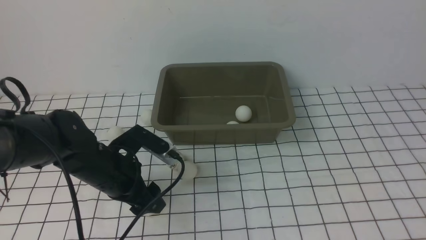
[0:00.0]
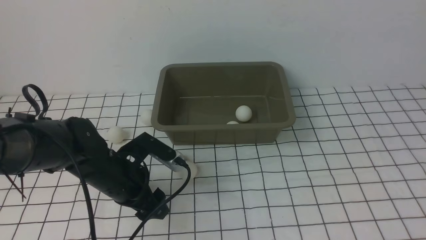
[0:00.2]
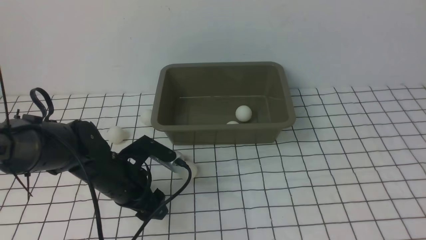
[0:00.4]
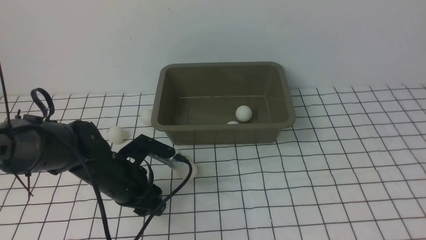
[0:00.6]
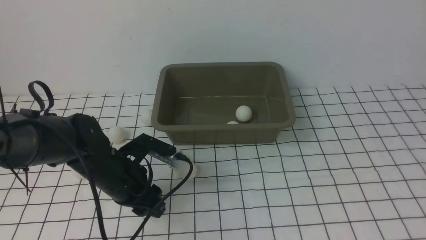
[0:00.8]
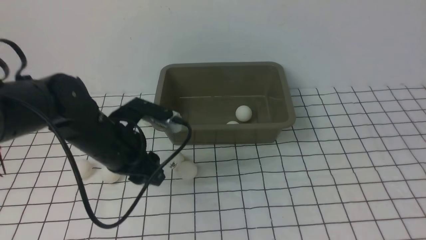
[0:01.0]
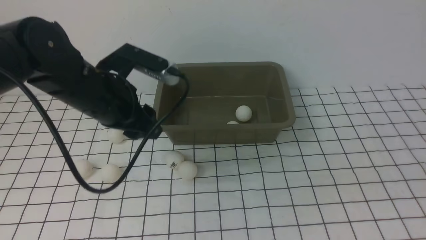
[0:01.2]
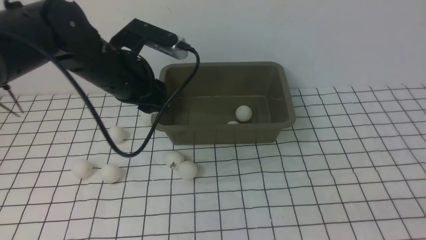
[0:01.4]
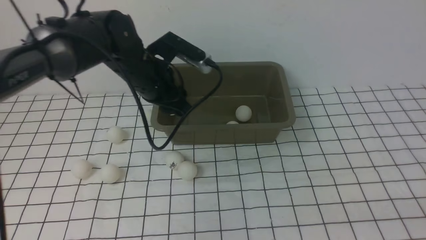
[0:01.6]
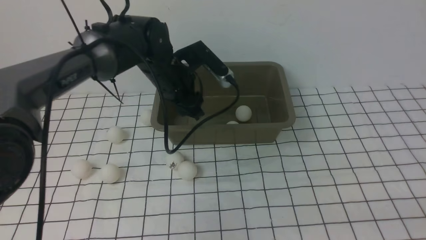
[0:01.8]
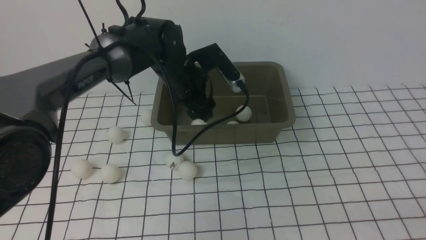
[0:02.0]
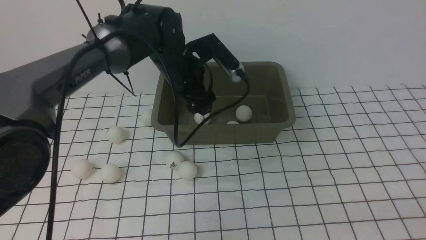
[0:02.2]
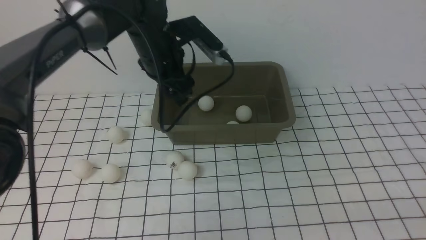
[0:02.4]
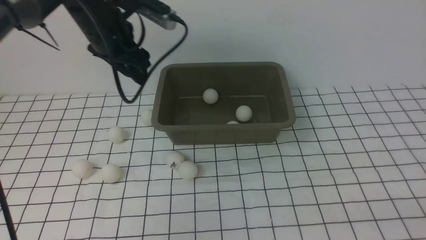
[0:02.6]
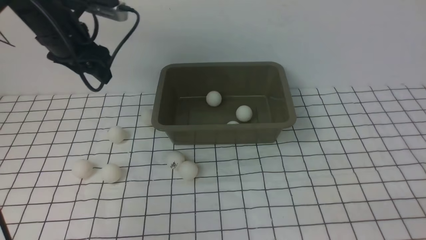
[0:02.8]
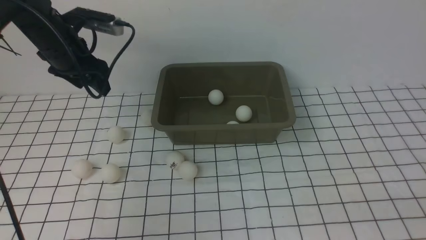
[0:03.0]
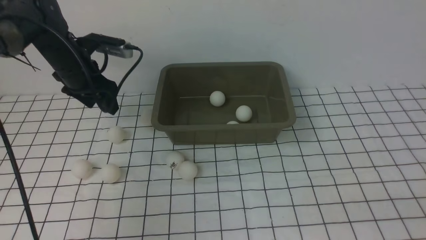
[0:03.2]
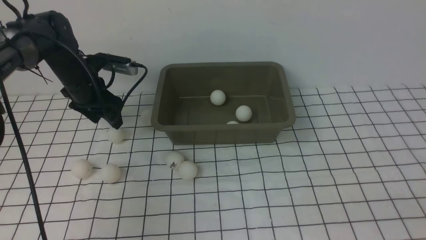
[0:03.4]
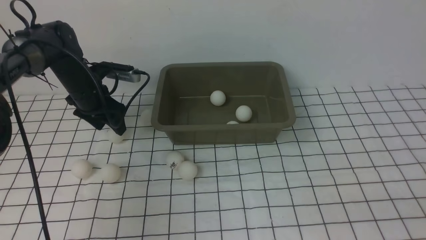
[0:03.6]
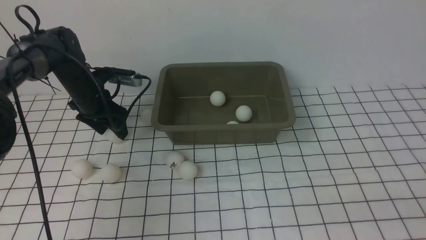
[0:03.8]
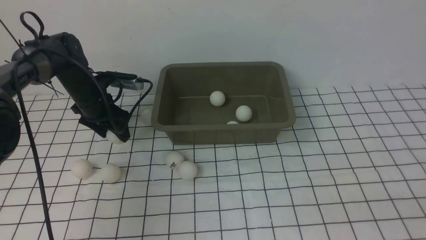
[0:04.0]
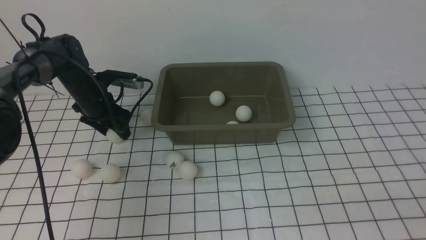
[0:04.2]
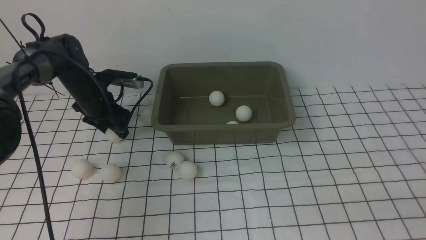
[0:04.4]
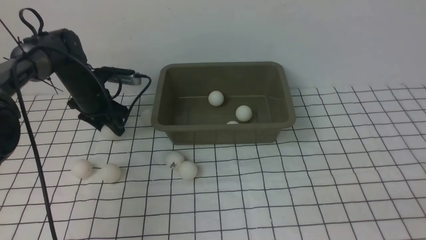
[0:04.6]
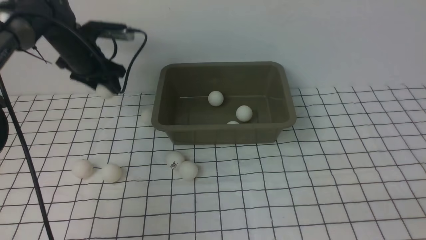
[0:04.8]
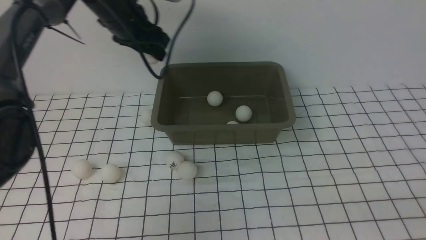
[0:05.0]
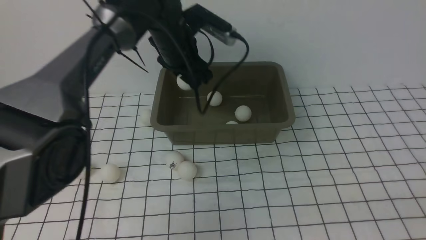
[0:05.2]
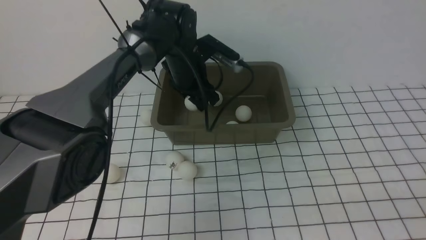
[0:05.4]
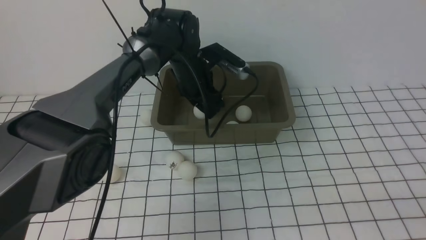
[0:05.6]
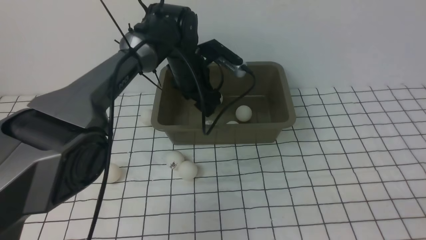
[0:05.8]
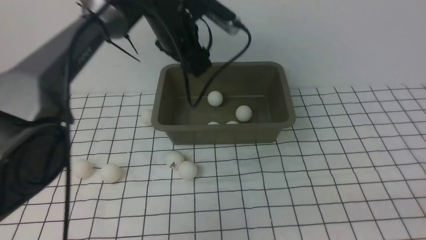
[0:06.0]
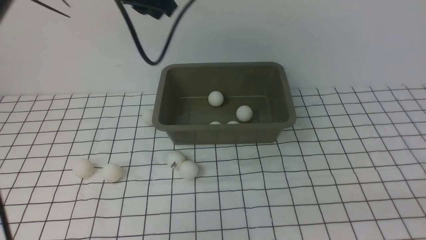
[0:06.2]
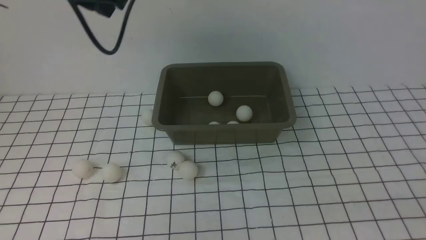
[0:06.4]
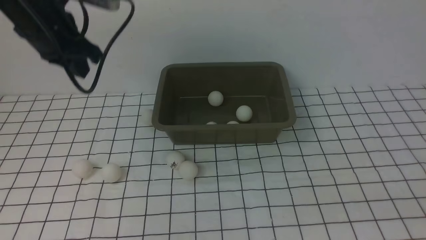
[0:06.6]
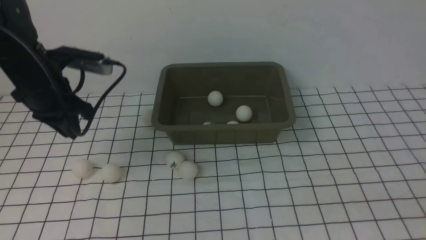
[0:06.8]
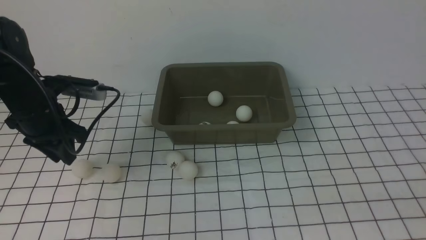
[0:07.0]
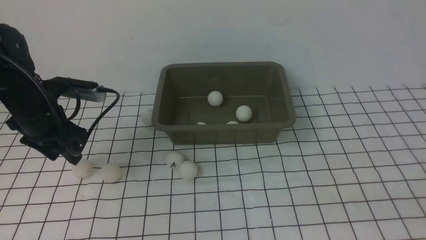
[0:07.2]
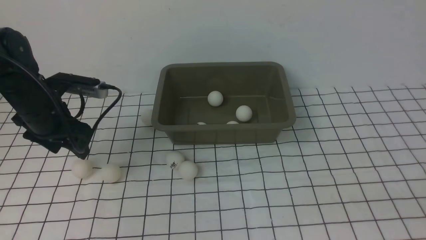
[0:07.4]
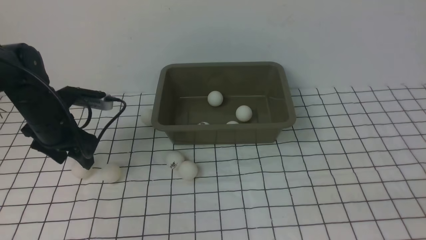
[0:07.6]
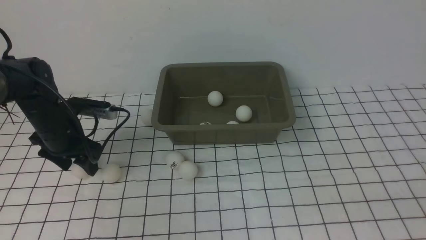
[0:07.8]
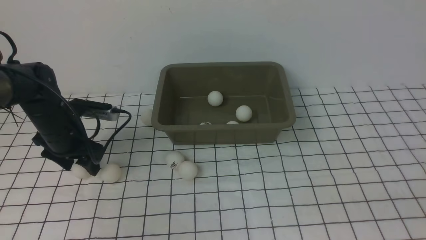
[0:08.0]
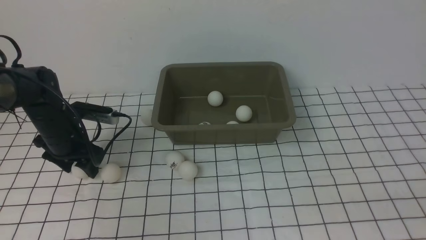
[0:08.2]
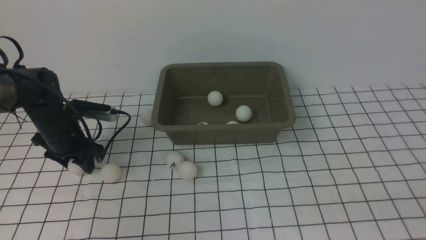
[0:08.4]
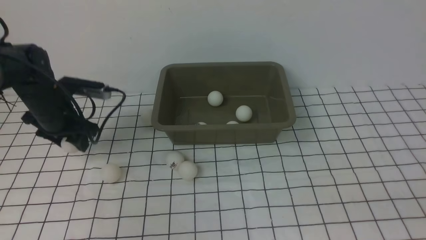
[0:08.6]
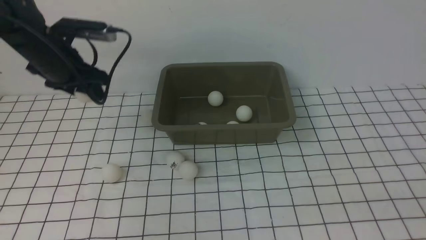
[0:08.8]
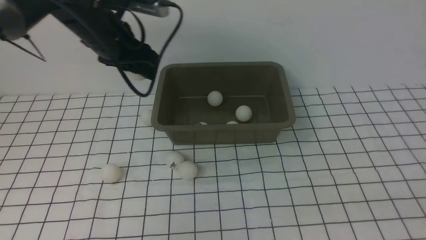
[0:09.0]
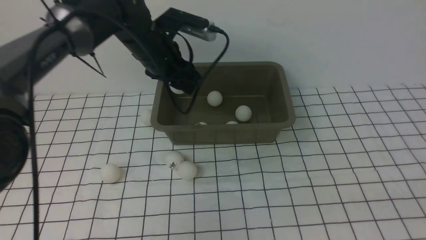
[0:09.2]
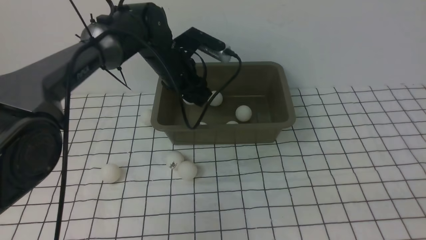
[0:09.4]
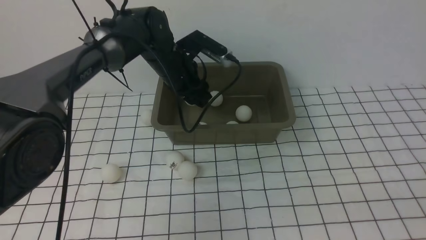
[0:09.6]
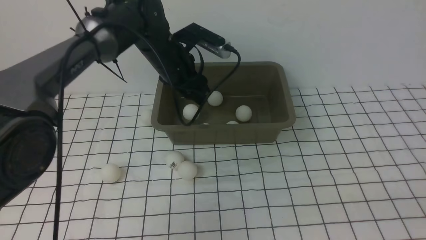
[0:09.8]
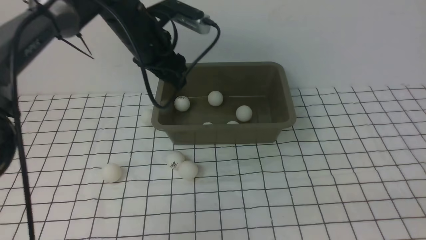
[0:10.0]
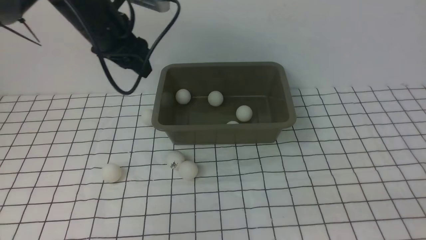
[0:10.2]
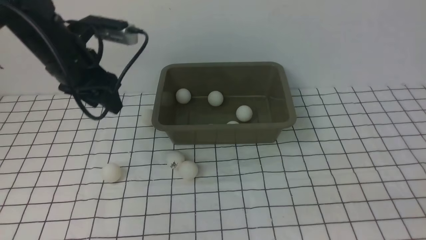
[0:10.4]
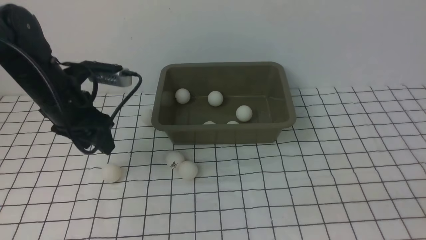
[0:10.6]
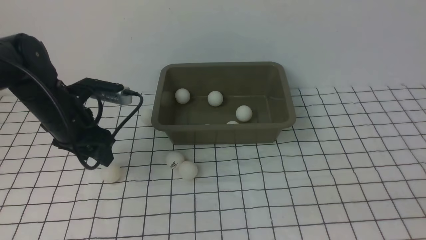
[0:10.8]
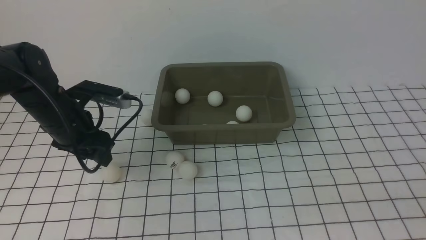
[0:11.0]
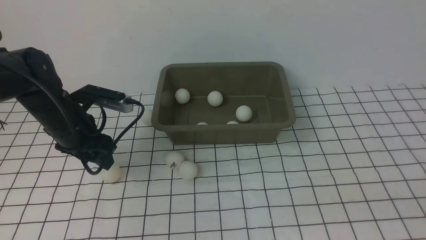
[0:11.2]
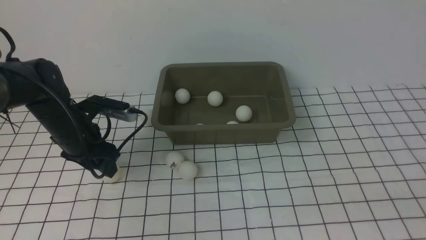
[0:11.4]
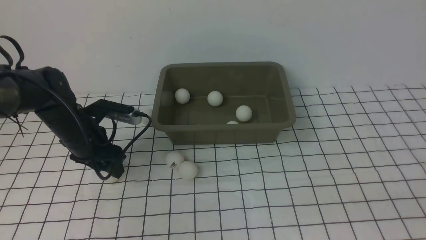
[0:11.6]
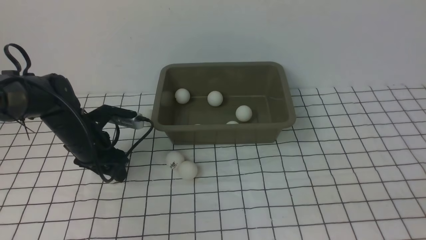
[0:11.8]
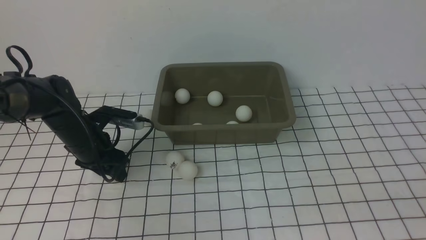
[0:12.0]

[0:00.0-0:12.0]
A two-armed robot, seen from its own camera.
Step, 0:01.2 to 0:02.2: use the left arm to put the table tennis ball into the box.
Step, 0:02.4 to 0:04.8: use the left arm to clamp the table tennis ball closest to it.
Step, 0:05.0 to 0:05.6: use the left arm to put the table tennis ball into the box.
Step, 0:05.8 to 0:08.6: use the left arm to clamp the table tennis ball closest to it.
Step, 0:08.8 to 0:09.8: use the left arm to put the table tennis ball into the box.
0:00.0 to 0:01.6: The right gripper is displaced downward and backward by some 20 cm; the left gripper moves forward, upward and to the right, about 15 cm.
0:01.6 to 0:03.0: The left gripper shifts about 15 cm to the left.
0:03.0 to 0:04.4: The left gripper travels downward by approximately 10 cm.
0:04.4 to 0:06.0: The left gripper moves to the right and upward, about 25 cm.
0:06.0 to 0:07.6: The left gripper travels to the left, downward and backward by some 25 cm, and closes, then reopens.
0:07.6 to 0:09.0: The left gripper heads upward, to the right and forward, covering roughly 15 cm.
0:09.0 to 0:10.4: The left gripper travels to the right and back again, approximately 10 cm each way.
0:10.4 to 0:12.0: The left gripper moves downward, about 15 cm.

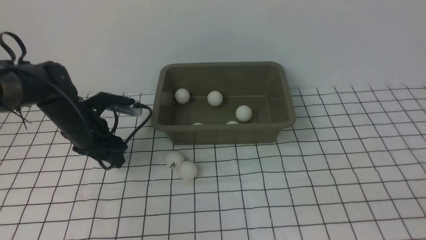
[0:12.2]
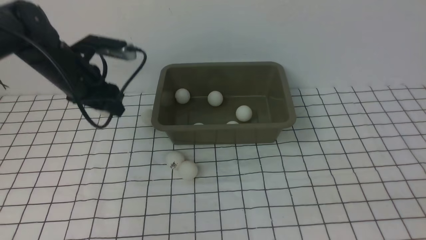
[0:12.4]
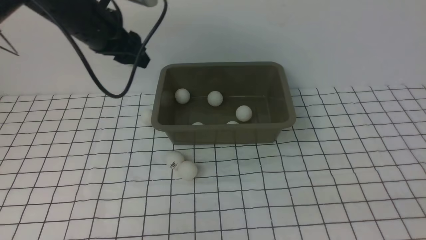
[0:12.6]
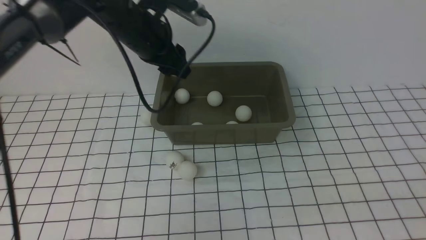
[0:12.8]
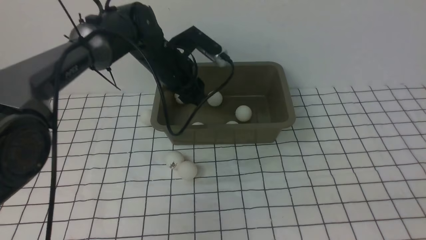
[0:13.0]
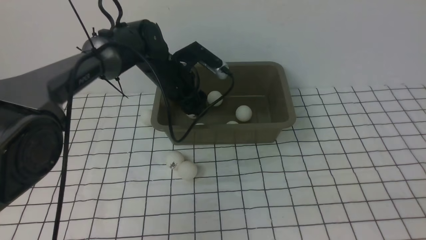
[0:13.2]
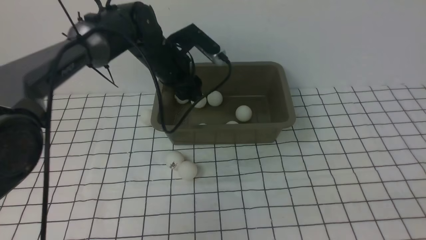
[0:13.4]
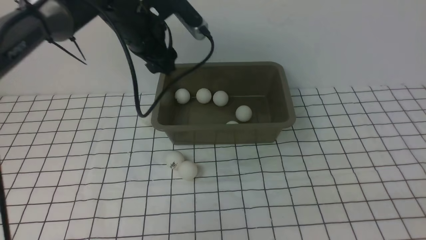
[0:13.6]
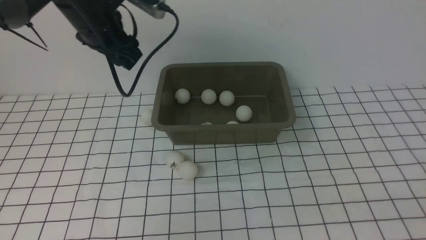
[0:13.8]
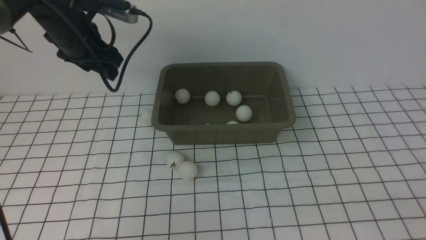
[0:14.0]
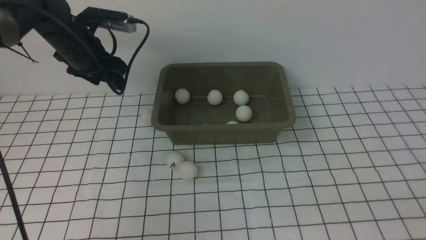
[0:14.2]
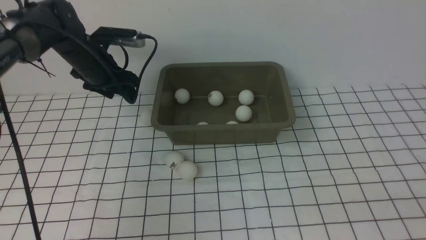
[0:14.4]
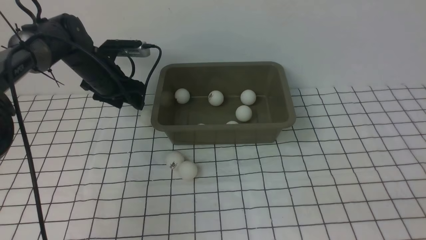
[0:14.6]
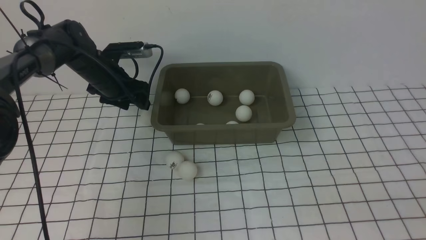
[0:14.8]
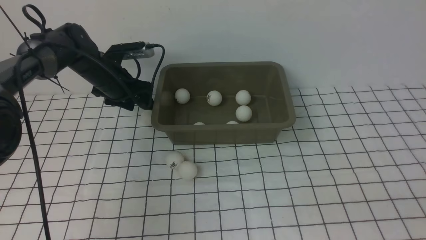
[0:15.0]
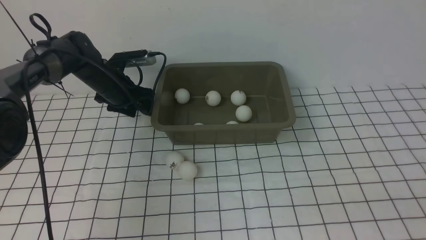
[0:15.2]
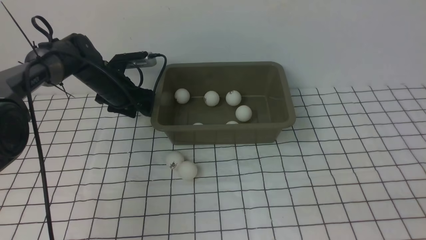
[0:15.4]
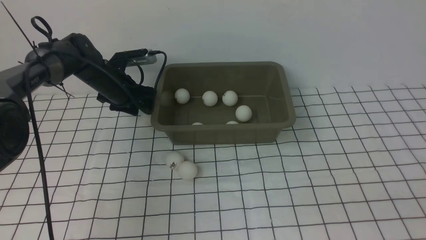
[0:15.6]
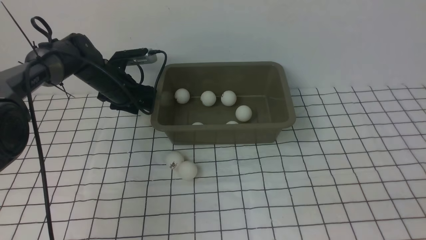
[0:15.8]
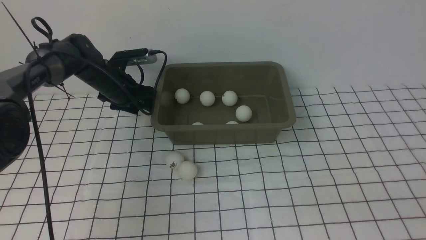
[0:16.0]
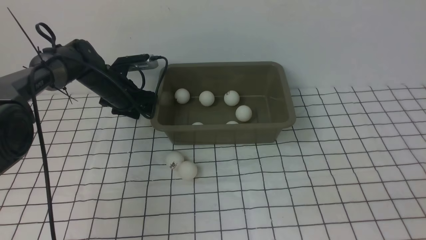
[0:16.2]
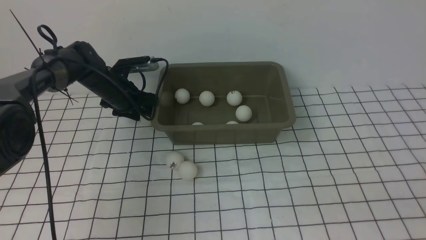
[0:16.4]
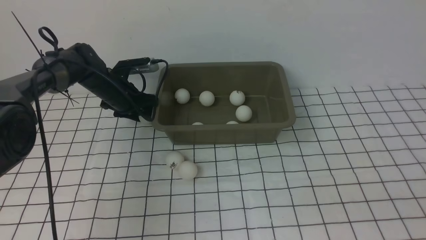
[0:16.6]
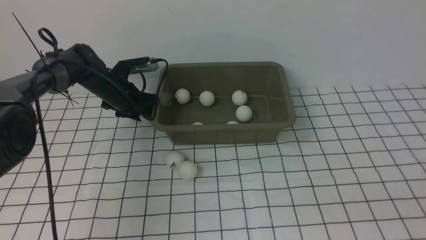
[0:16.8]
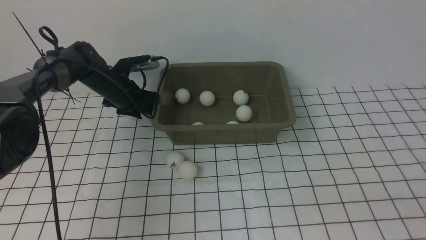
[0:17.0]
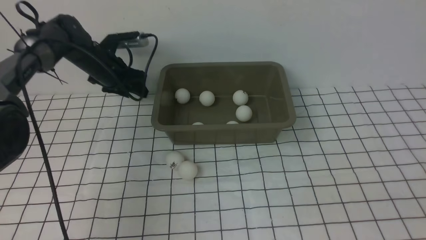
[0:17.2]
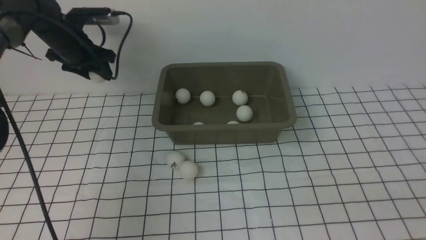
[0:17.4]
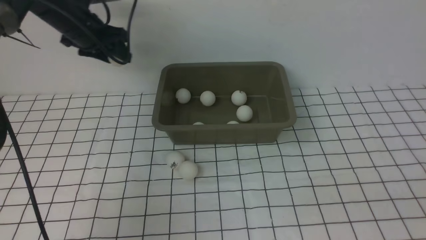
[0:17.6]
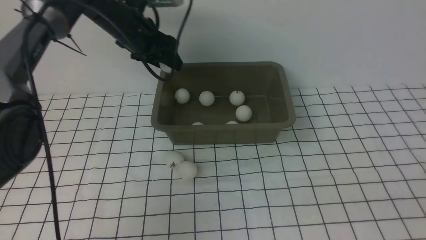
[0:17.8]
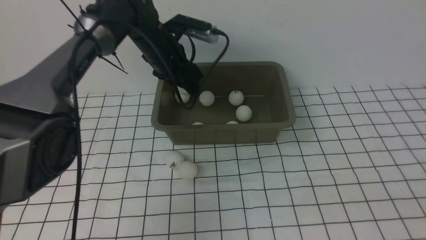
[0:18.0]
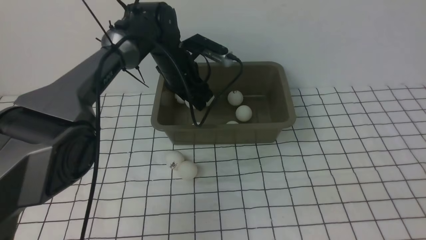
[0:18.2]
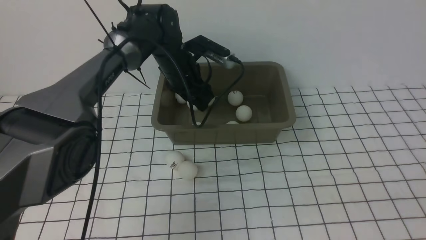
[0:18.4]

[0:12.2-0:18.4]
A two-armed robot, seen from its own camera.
Step, 0:12.6 to 0:13.2: use the left arm to put the table tennis ball into the box.
Step, 0:13.6 to 0:17.2: use the left arm to clamp the table tennis ball closest to it.
0:12.2 to 0:13.8: The left gripper travels upward and to the right by roughly 15 cm.
0:13.8 to 0:15.4: The left gripper heads downward, covering roughly 15 cm.
0:15.4 to 0:16.8: The grippers move only a little.
0:16.8 to 0:18.4: The left gripper heads to the right and upward, covering some 15 cm.
